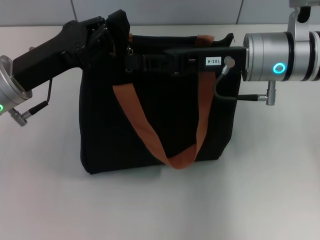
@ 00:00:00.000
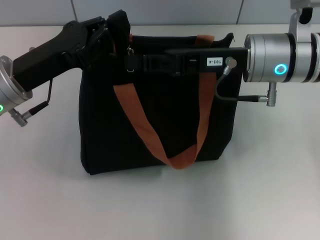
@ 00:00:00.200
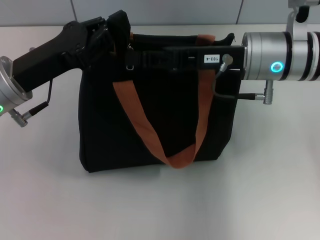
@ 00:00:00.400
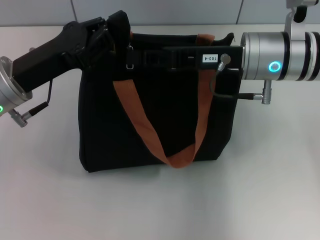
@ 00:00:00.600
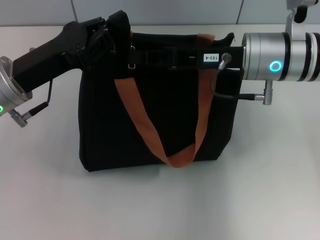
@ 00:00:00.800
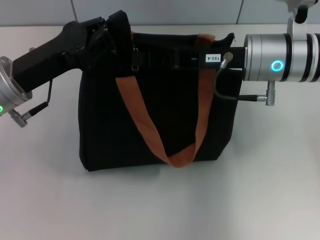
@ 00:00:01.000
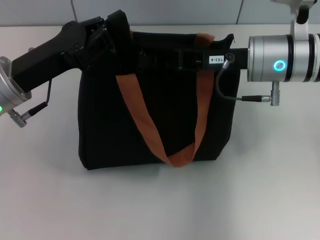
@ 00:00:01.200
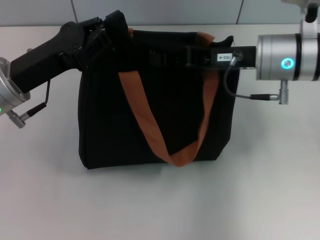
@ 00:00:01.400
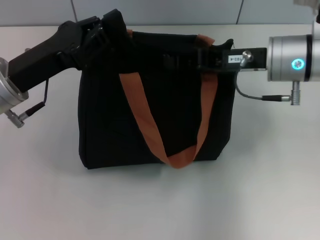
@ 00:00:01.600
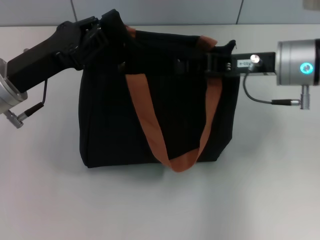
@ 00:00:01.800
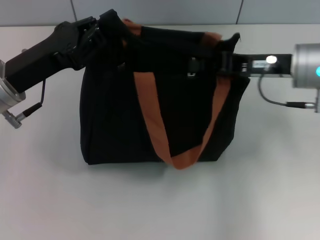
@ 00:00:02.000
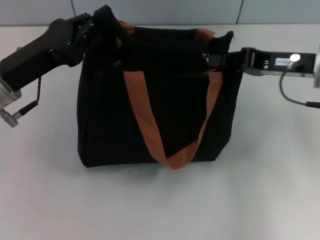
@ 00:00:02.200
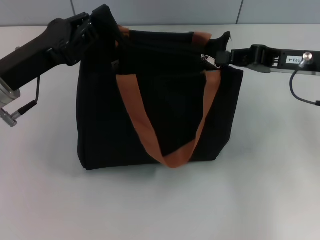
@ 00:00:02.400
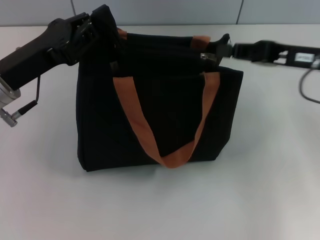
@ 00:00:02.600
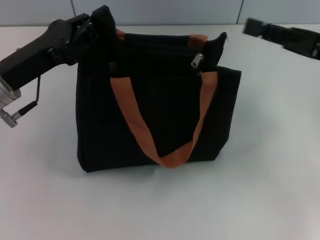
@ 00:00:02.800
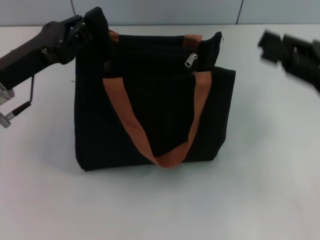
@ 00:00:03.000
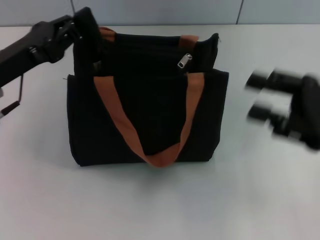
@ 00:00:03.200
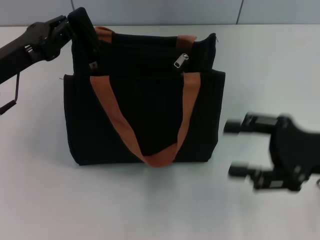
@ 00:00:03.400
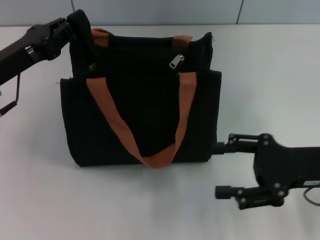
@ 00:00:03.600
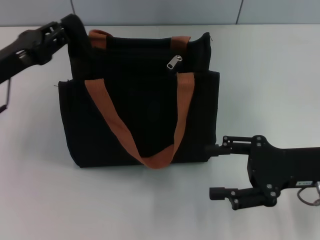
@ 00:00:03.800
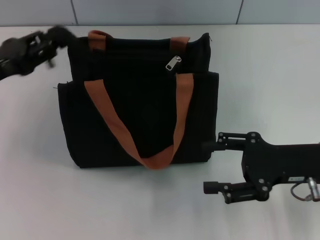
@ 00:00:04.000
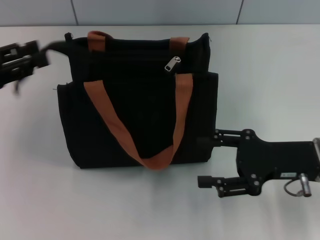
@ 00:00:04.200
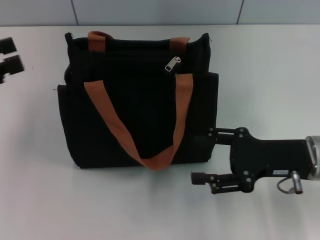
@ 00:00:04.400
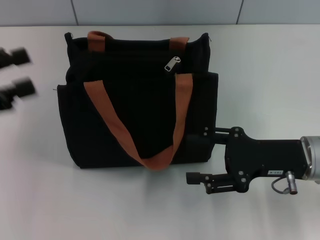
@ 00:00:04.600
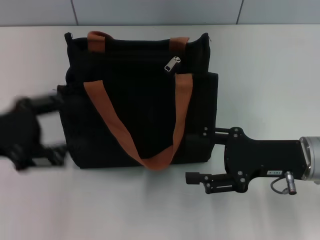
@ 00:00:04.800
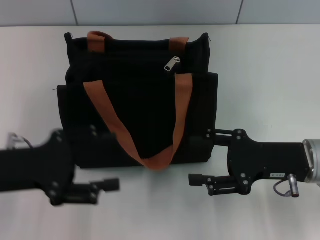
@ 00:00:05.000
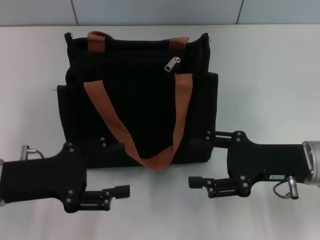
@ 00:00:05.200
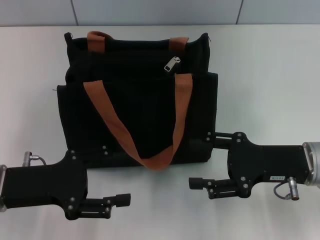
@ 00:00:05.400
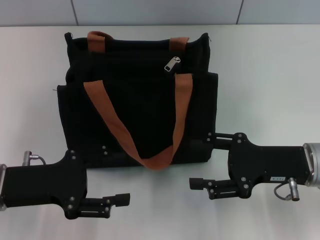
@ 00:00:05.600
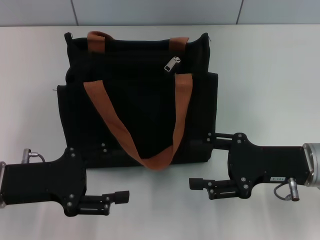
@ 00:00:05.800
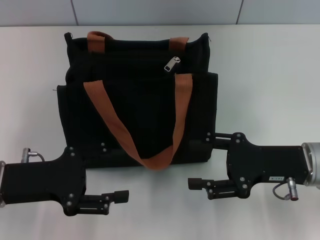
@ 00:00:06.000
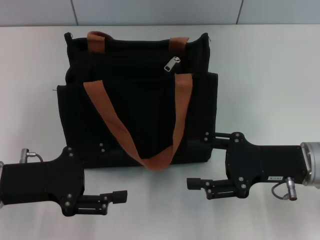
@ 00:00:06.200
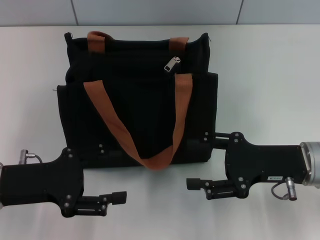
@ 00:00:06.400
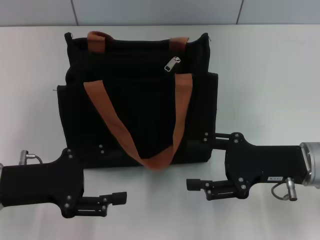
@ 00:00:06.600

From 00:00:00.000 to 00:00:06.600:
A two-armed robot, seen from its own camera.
Step, from 00:00:00.000 to 00:00:02.400: Pull up the zipper with your right hand.
Step, from 00:00:02.800 to 00:00:04.200: Grab the zipper with your left hand.
From 00:00:01.600 to 00:00:03.200: The right gripper shifts roughly 15 cm backward and to the right, and opens up.
From 00:00:03.200 to 00:00:05.000: The left gripper travels backward by approximately 5 cm, moves some 10 cm to the left and comes back, and opens its fingers. Meanwhile the right gripper moves downward, some 5 cm, and opens up.
From 00:00:05.000 to 00:00:06.600: The grippers stay close to where they were, moving slightly.
